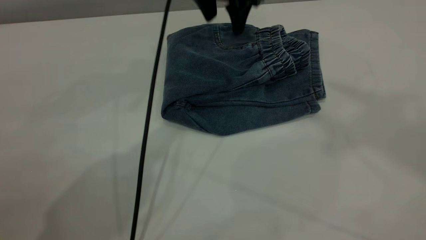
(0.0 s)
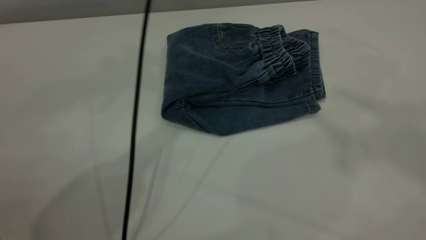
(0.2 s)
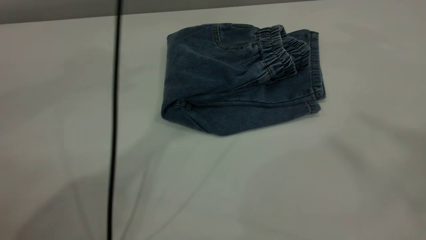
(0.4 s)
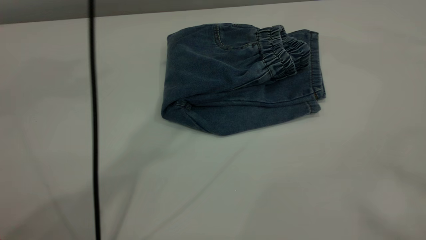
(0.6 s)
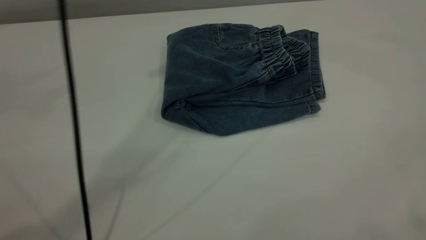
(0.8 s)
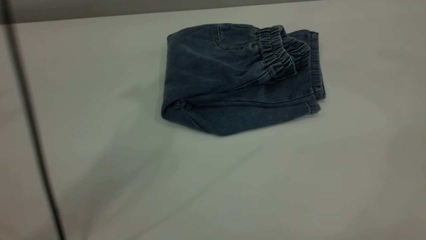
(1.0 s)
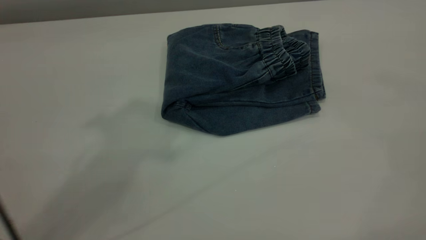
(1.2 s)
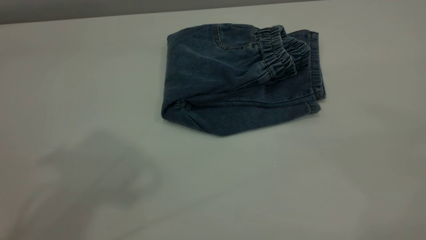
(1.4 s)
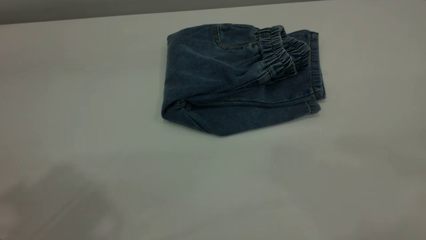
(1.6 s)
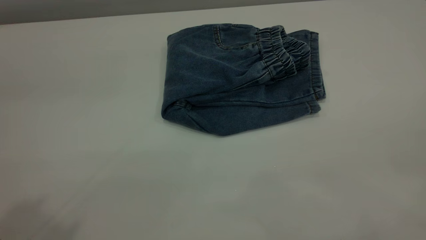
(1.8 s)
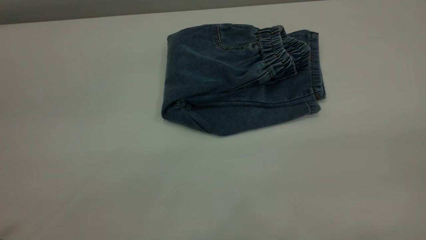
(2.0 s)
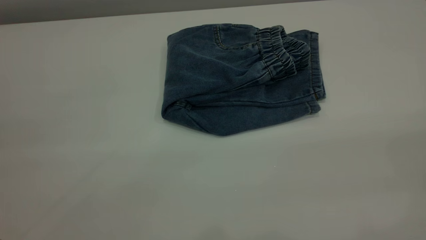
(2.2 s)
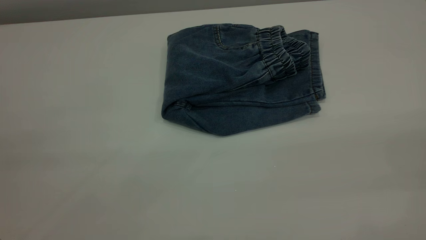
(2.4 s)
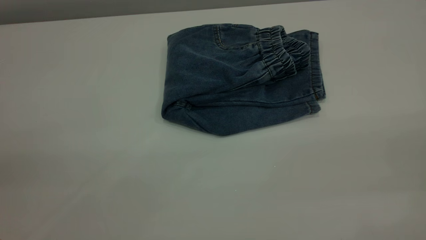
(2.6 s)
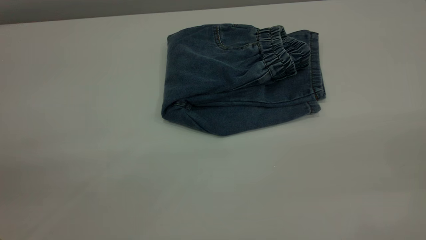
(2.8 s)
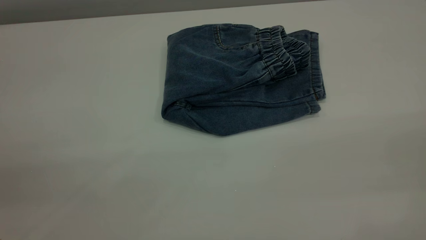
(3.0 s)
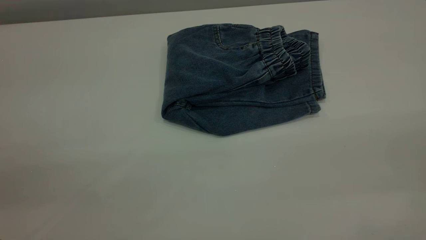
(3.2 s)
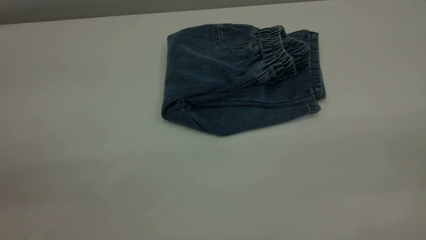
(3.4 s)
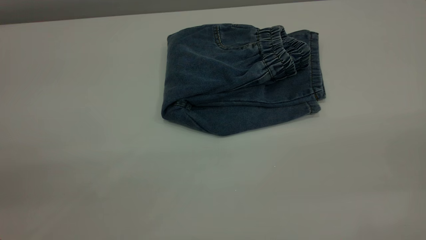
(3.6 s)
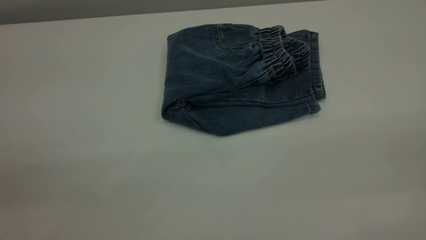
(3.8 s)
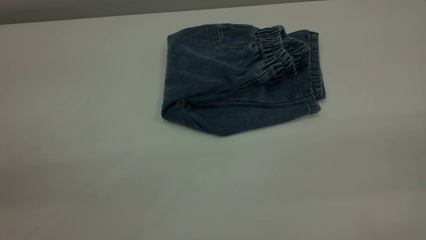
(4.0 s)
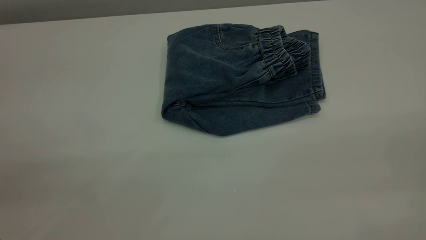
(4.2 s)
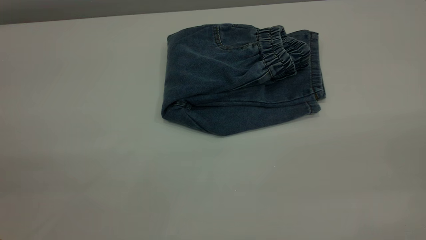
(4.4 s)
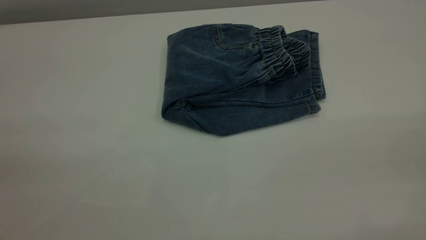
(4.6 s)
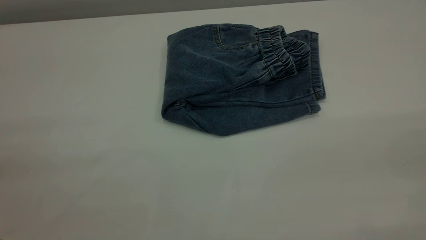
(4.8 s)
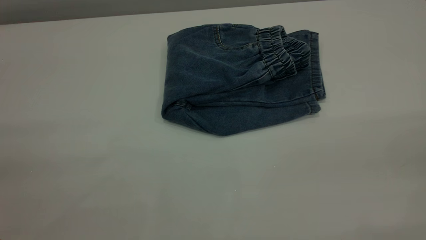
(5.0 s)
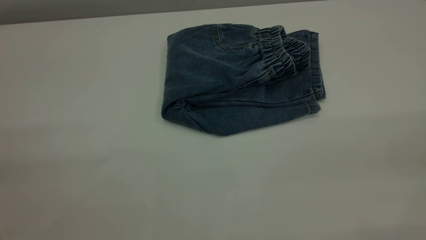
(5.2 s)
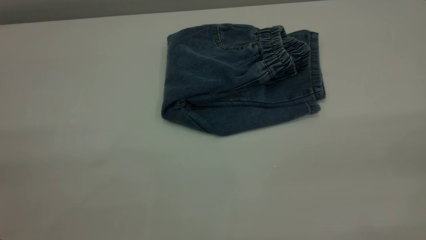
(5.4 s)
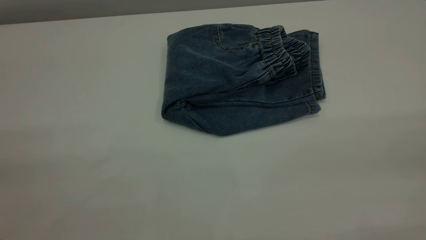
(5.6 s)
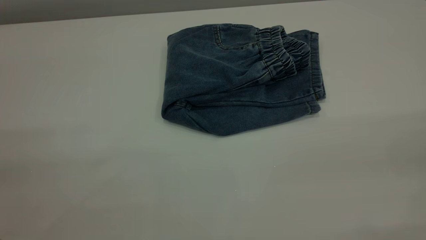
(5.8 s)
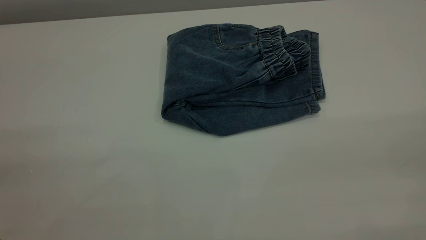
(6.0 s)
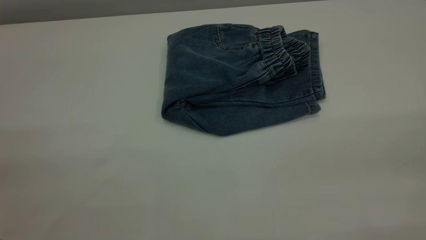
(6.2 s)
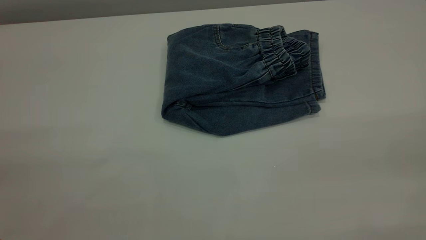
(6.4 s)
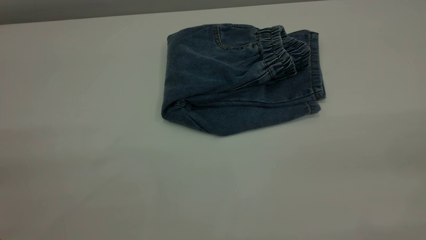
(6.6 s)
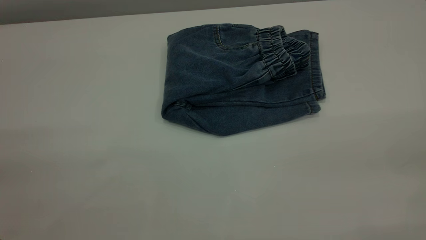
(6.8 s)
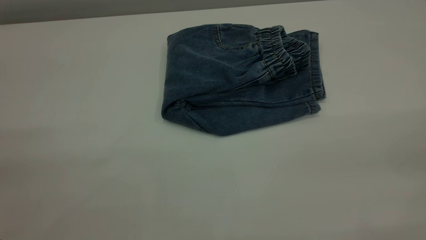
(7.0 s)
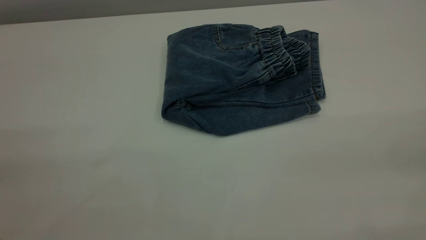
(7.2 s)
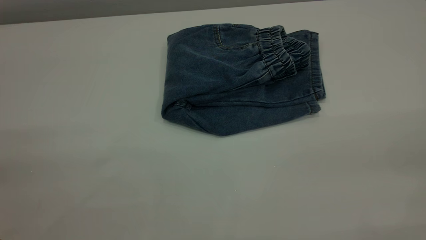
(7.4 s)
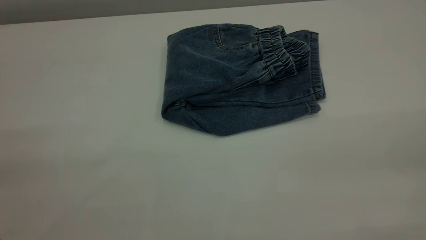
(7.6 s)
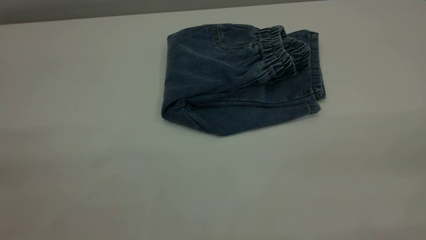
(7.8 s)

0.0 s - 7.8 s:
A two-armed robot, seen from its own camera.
0.0 s - 1.6 s: The left gripper goes about 40 cm backward, upward and to the left. Meanwhile the right gripper goes approximately 35 cm backward and downward.
